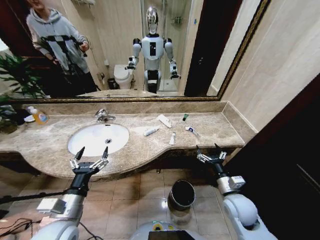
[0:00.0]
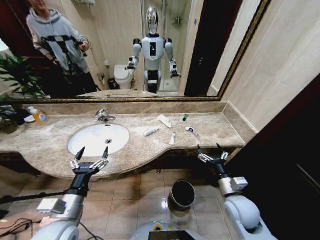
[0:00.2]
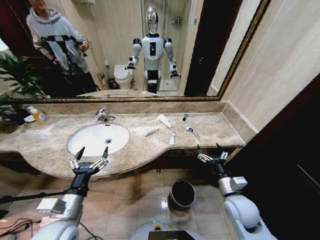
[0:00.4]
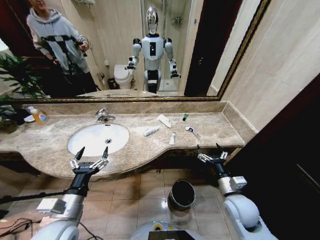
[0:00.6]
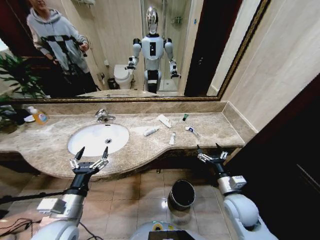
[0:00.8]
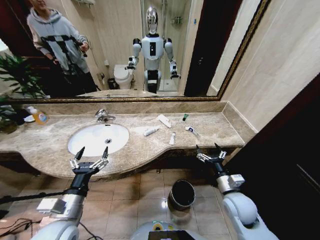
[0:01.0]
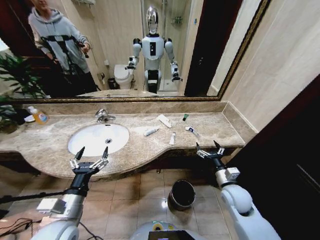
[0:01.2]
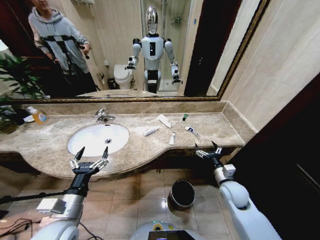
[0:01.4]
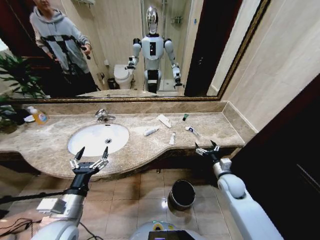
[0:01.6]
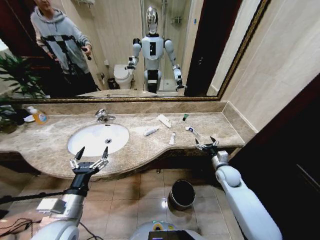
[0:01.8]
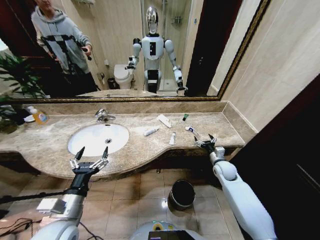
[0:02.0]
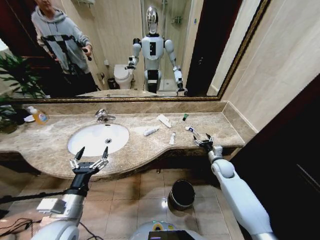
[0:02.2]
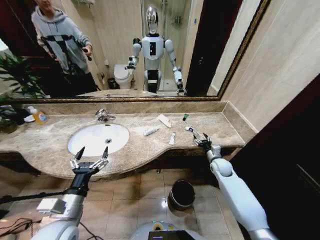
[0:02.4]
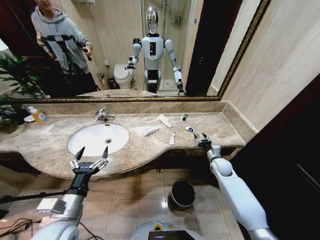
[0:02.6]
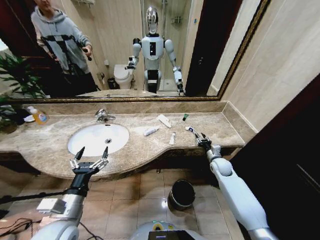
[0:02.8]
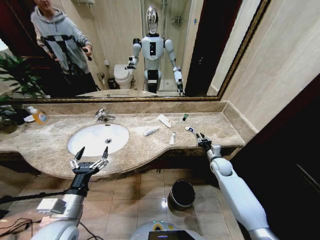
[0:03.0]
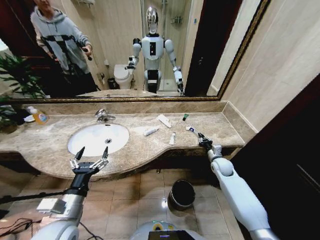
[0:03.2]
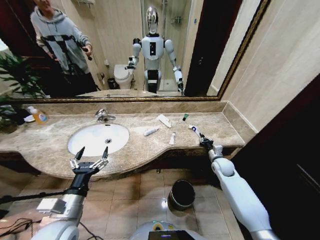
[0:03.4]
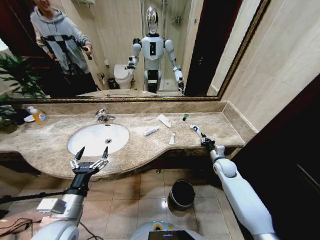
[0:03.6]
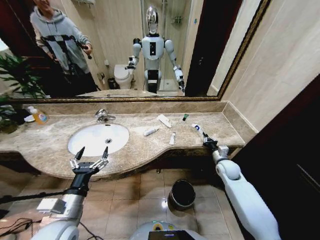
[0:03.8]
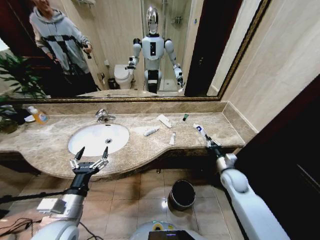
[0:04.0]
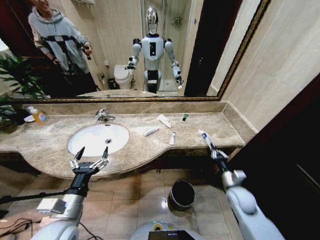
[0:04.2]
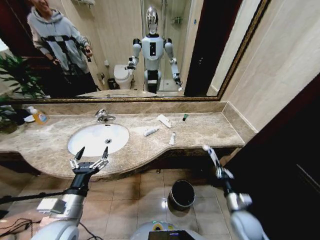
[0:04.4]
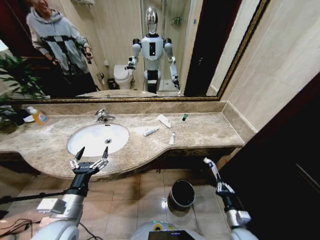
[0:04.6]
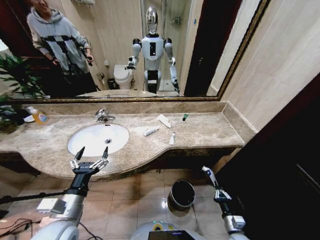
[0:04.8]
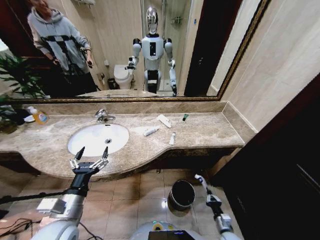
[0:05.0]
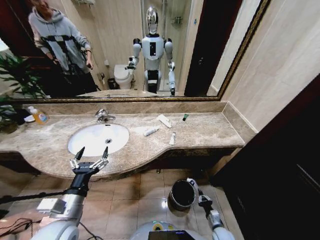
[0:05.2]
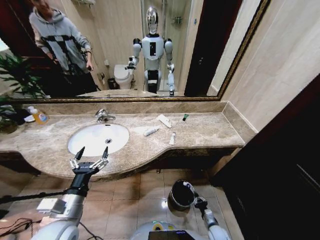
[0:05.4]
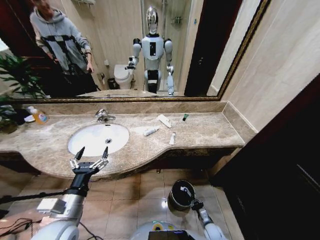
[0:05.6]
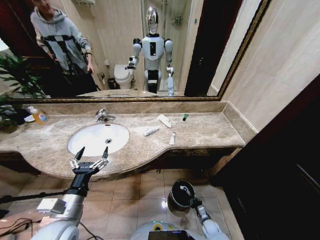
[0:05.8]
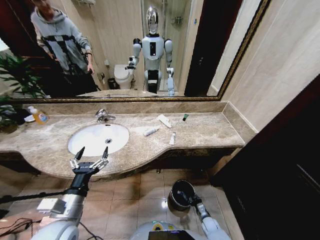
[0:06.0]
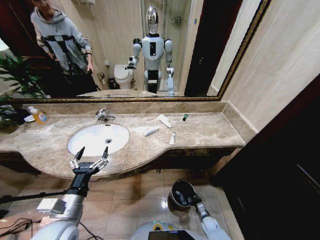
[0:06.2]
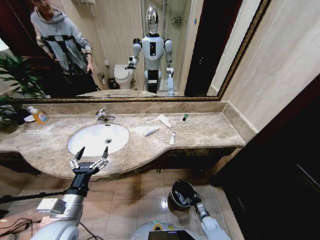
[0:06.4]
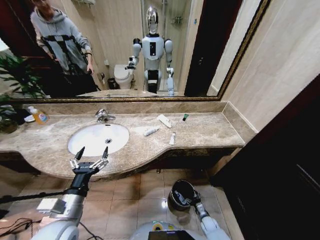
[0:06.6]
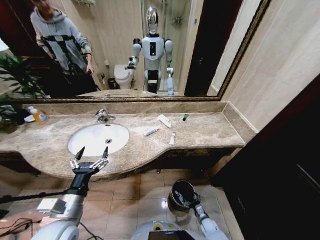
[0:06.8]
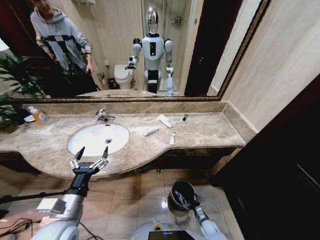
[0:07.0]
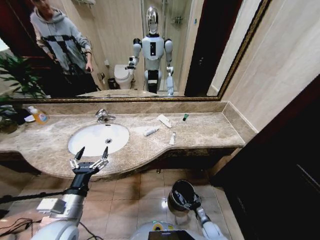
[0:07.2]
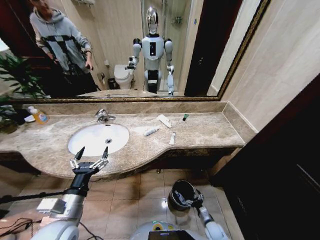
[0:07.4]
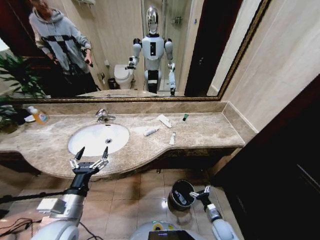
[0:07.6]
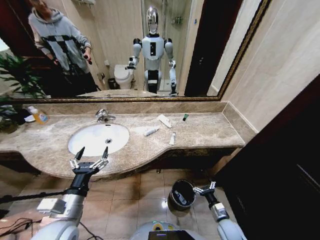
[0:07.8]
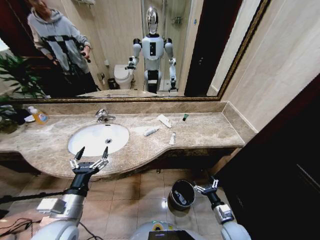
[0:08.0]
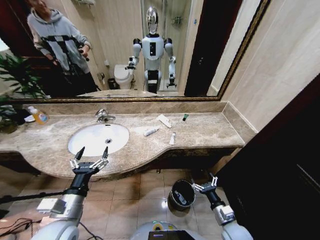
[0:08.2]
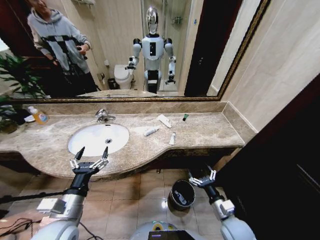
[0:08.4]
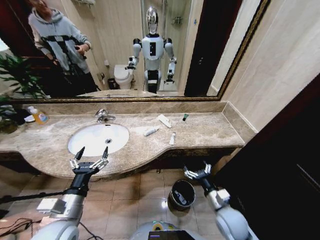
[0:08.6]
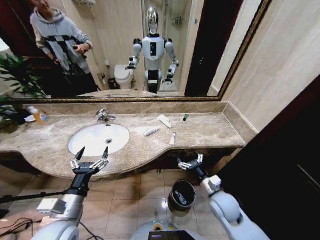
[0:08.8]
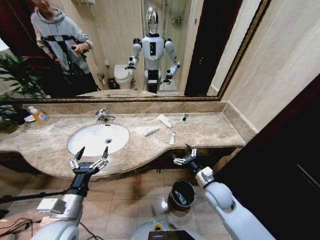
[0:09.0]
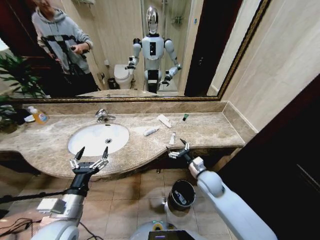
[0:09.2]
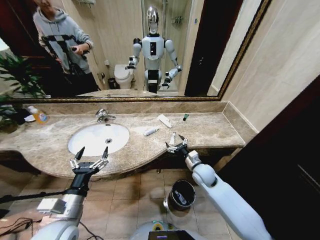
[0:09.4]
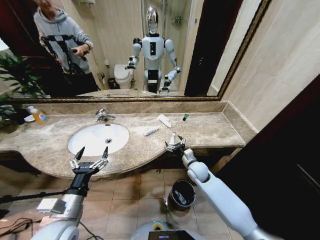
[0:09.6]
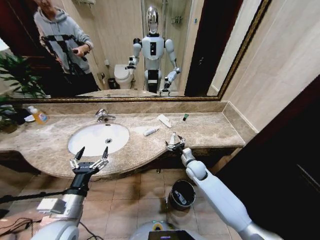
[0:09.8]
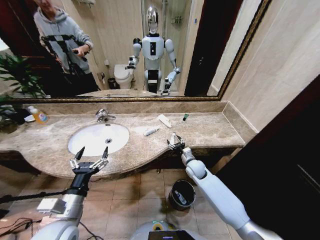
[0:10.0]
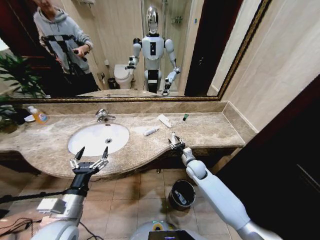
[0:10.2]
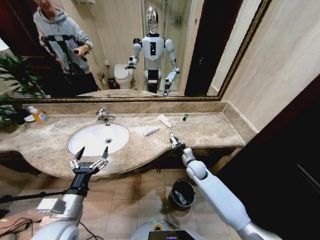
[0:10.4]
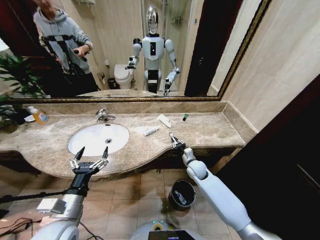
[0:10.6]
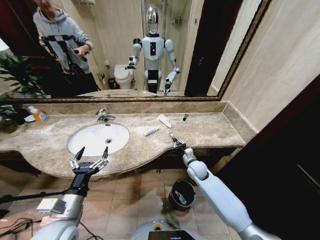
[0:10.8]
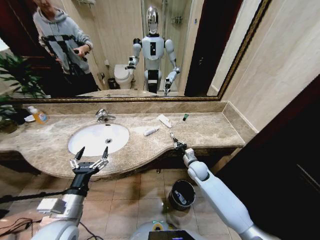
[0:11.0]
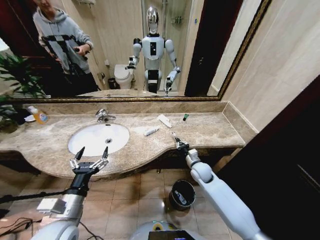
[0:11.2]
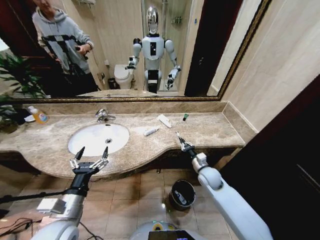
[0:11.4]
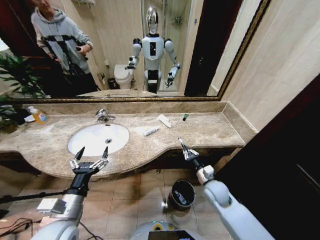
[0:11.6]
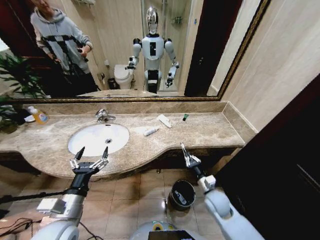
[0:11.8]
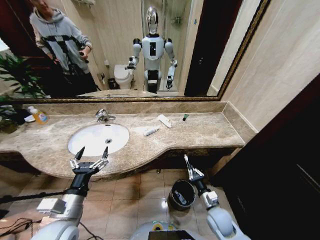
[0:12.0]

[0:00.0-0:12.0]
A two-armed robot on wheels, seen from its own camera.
Task of the whole recording: Pick up the trash from the sink and place it in the trash bin.
0:01.6 to 0:03.0: The right gripper is displaced forward by some 10 cm, and closes its fingers.
0:03.0 to 0:04.4: The right gripper is displaced backward by approximately 25 cm.
0:04.4 to 0:06.0: The right gripper goes roughly 25 cm downward.
0:06.0 to 0:07.6: The right gripper shifts roughly 10 cm upward, and opens its fingers.
0:07.6 to 0:09.0: The right gripper moves upward, about 25 cm.
0:09.0 to 0:10.4: The right gripper moves forward, some 15 cm, and closes.
0:10.4 to 0:12.0: The right gripper heads backward, covering approximately 20 cm, and closes.

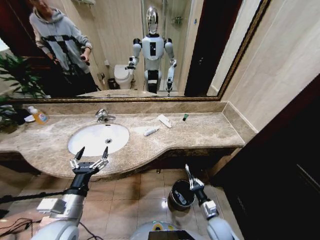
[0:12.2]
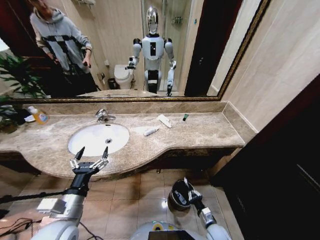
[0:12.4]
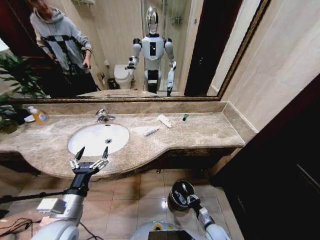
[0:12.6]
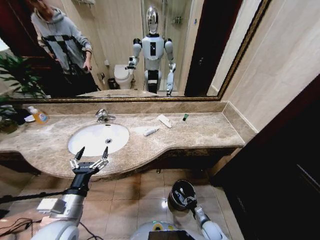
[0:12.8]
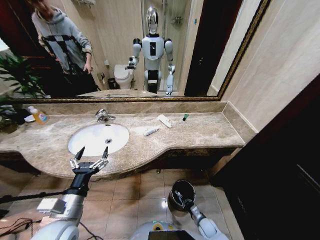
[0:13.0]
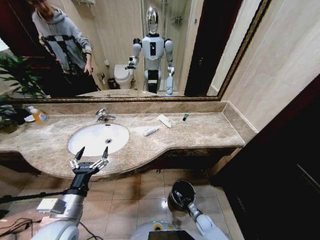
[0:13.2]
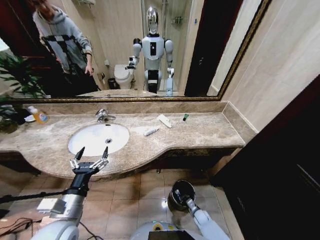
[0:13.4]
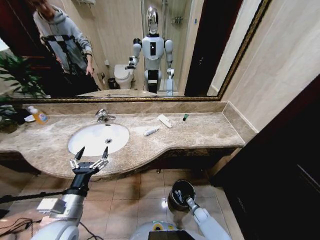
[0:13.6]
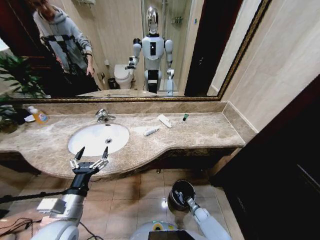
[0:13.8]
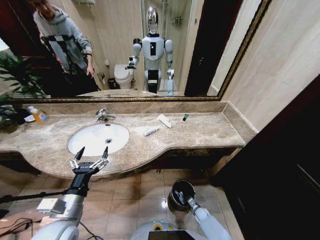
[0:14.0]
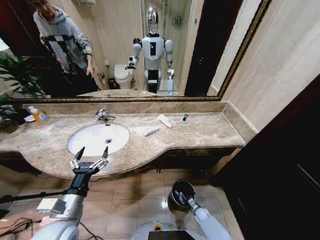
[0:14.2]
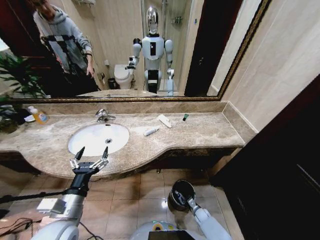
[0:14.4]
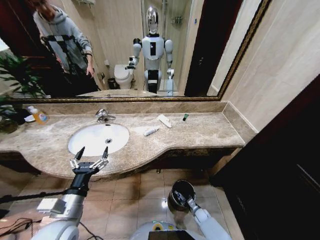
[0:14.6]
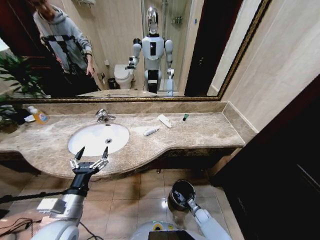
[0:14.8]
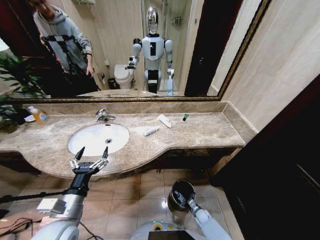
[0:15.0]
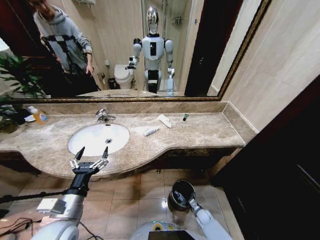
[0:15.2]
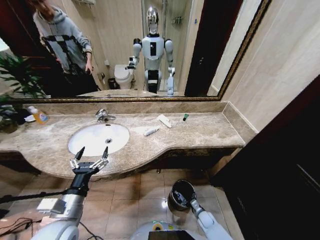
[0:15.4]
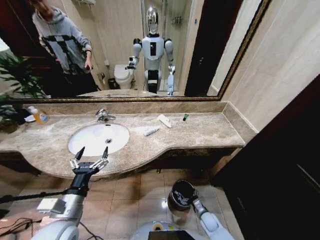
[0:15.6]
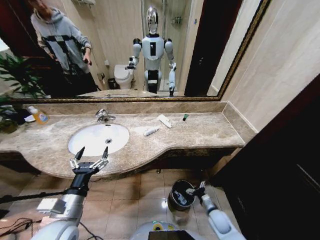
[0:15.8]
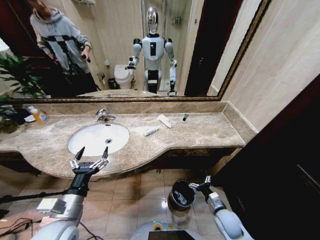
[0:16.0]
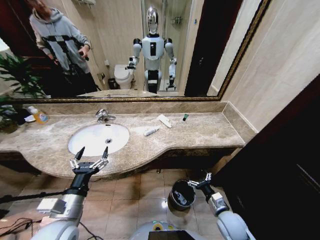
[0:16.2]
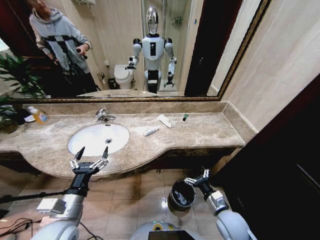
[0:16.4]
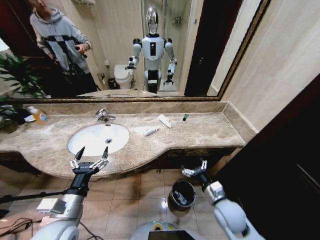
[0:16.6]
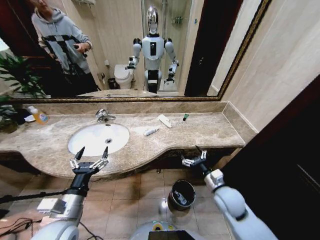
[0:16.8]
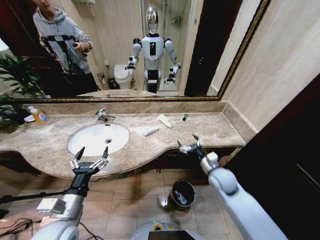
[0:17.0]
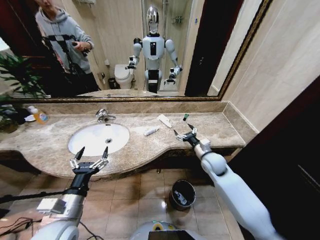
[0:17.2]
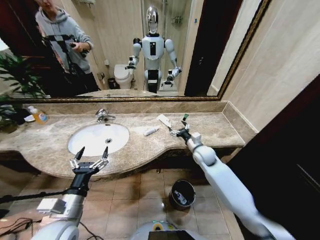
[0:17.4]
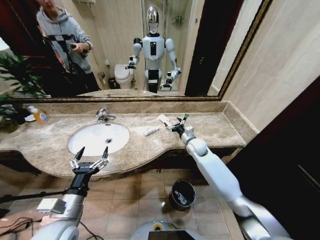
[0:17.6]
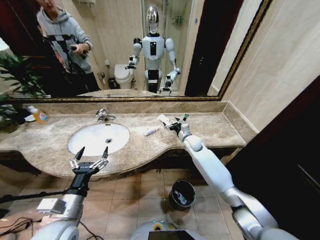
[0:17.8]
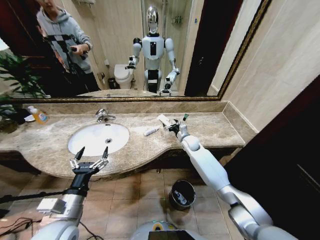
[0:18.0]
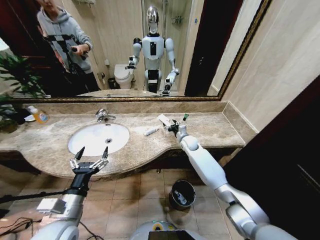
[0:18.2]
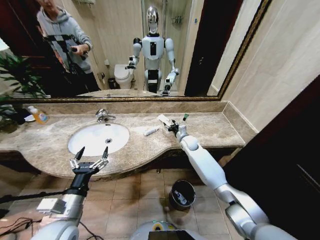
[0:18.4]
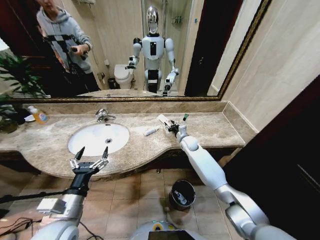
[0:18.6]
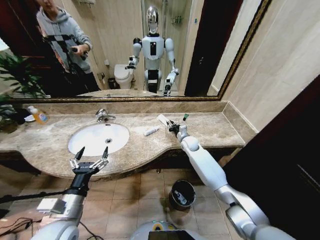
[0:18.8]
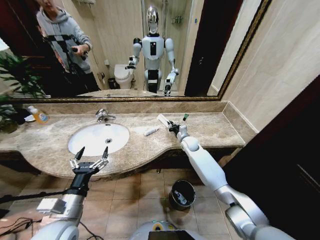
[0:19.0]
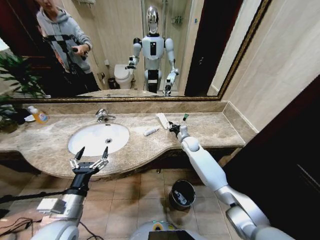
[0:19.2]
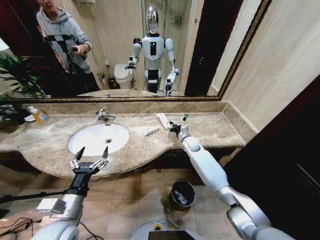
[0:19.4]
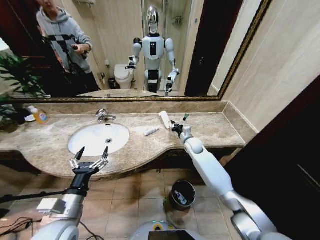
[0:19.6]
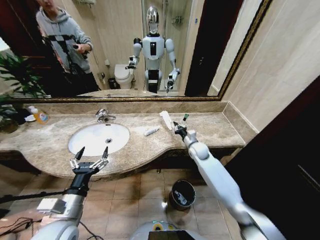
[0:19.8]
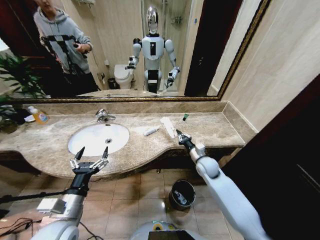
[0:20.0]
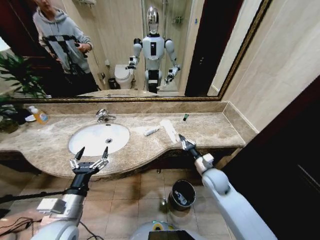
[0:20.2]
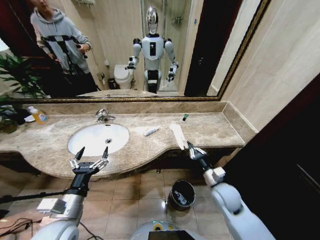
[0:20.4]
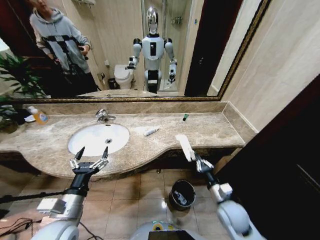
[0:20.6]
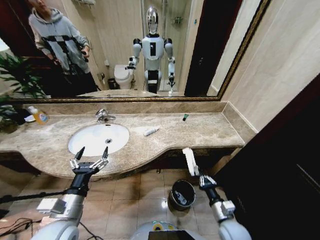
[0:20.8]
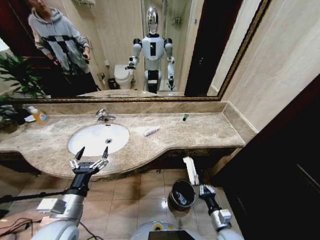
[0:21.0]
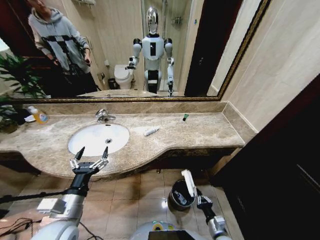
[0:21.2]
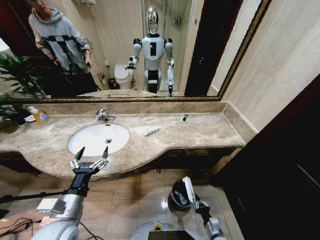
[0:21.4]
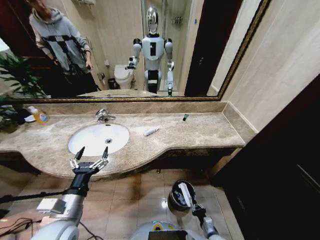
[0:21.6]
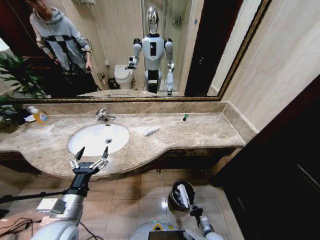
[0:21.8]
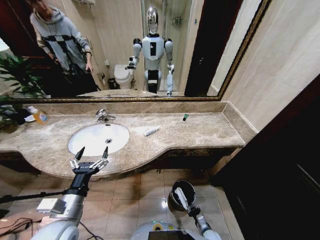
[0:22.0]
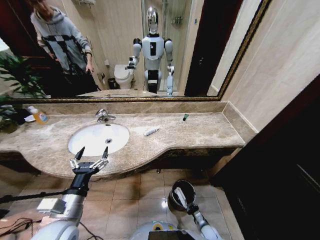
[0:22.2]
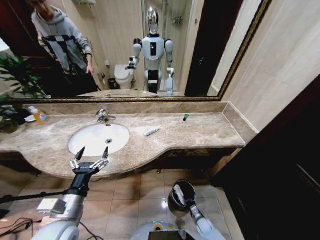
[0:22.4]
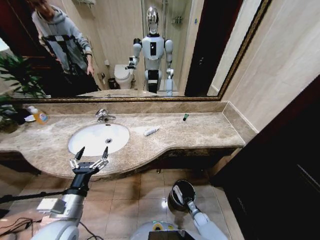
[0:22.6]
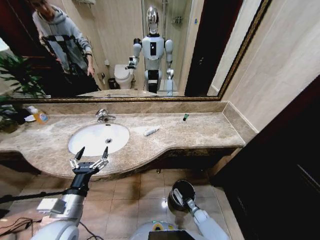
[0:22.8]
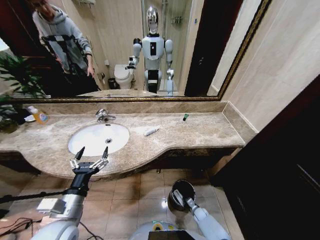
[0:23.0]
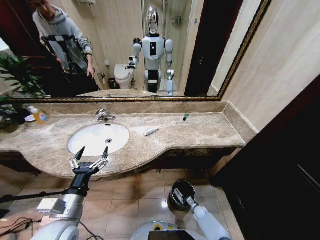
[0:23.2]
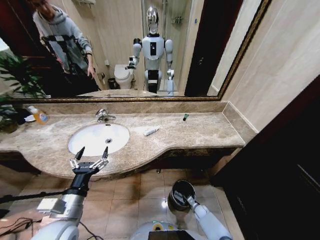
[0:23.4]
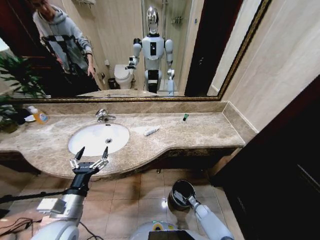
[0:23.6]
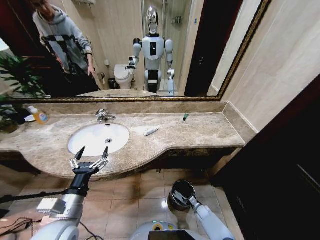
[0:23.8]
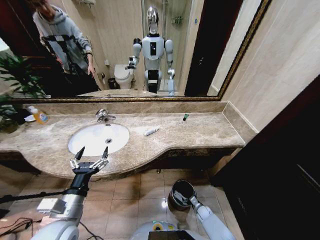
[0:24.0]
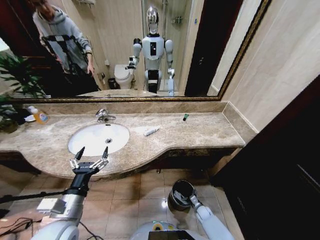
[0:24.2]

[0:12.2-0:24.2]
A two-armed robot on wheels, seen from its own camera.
Task of the whole recording: Pick up the trash from the sink and place it in the trash bin.
0:12.2 to 0:13.8: The right gripper is displaced downward by some 20 cm.
0:15.2 to 0:16.6: The right gripper goes approximately 35 cm upward.
0:16.6 to 0:18.2: The right gripper moves forward, roughly 30 cm.
0:18.2 to 0:19.8: The right gripper is displaced backward by about 5 cm, and closes its fingers.
0:19.8 to 0:21.2: The right gripper travels backward and downward by about 40 cm.
0:21.2 to 0:22.6: The right gripper shifts some 20 cm downward and forward.
0:22.6 to 0:24.2: The right gripper opens.
